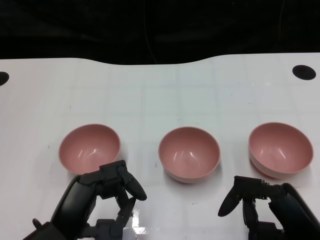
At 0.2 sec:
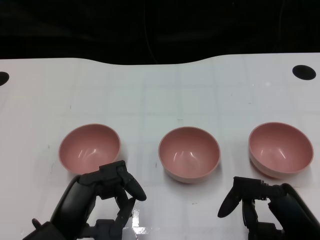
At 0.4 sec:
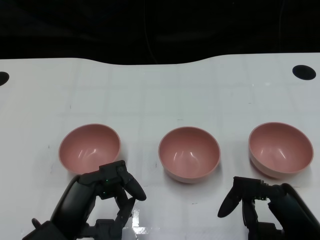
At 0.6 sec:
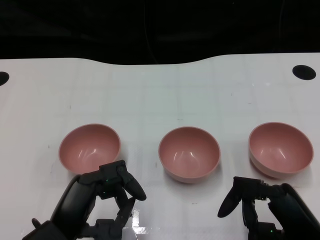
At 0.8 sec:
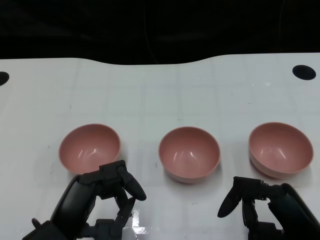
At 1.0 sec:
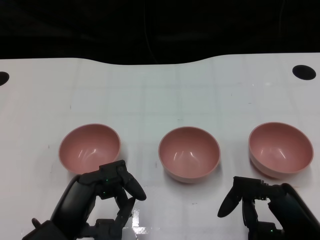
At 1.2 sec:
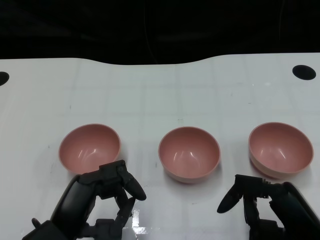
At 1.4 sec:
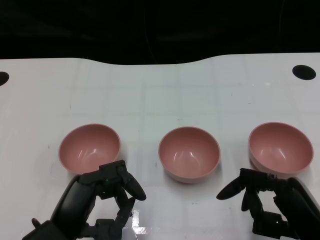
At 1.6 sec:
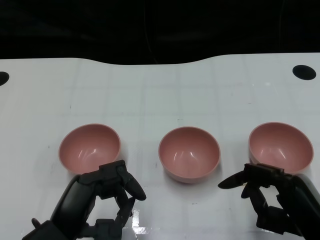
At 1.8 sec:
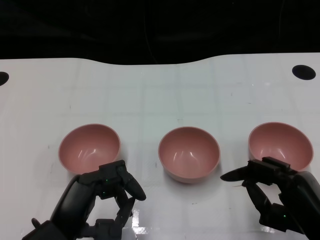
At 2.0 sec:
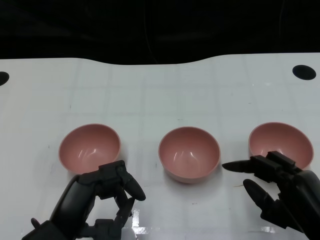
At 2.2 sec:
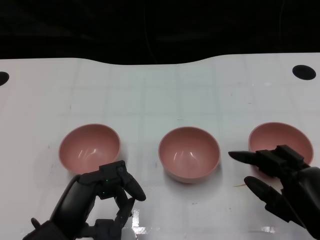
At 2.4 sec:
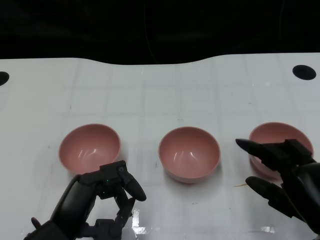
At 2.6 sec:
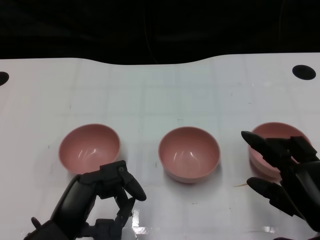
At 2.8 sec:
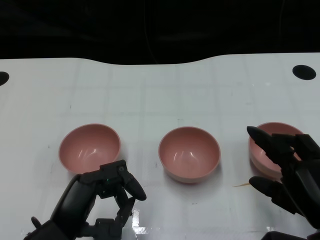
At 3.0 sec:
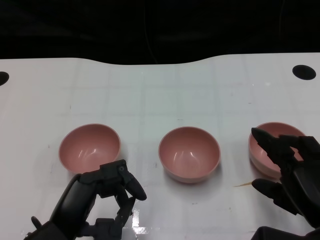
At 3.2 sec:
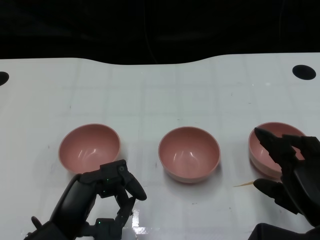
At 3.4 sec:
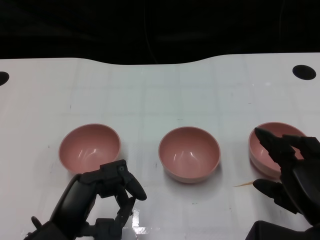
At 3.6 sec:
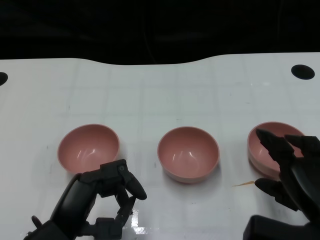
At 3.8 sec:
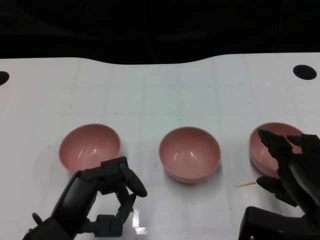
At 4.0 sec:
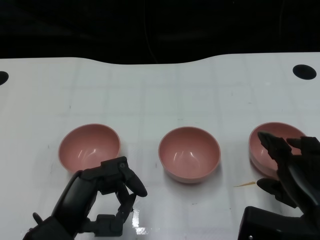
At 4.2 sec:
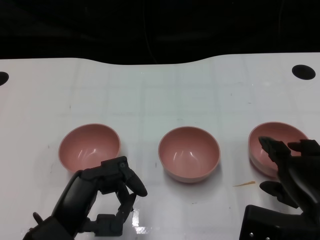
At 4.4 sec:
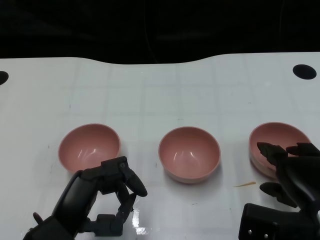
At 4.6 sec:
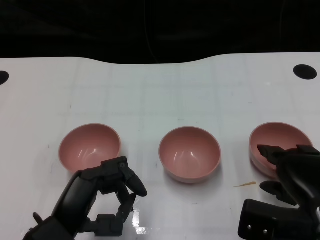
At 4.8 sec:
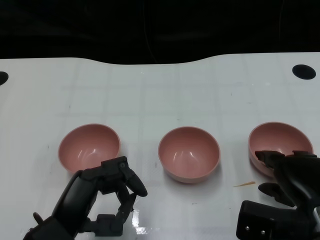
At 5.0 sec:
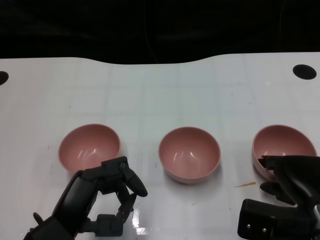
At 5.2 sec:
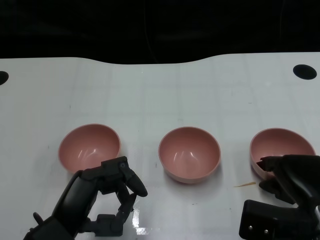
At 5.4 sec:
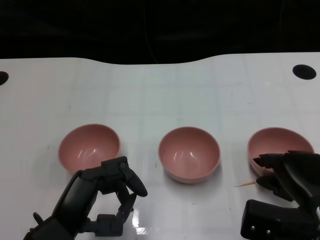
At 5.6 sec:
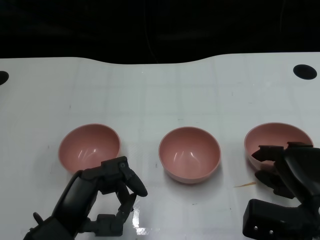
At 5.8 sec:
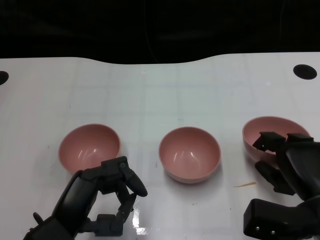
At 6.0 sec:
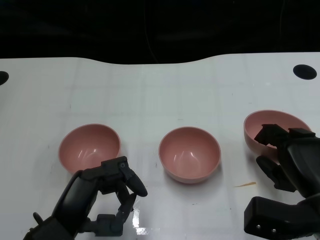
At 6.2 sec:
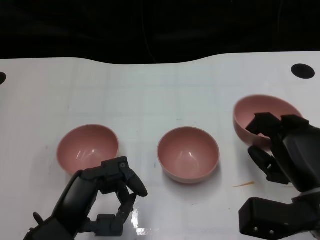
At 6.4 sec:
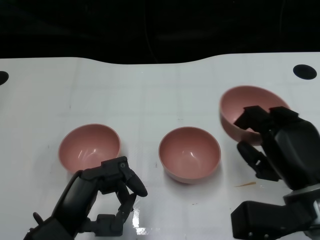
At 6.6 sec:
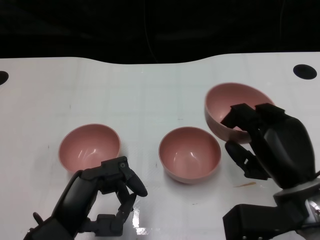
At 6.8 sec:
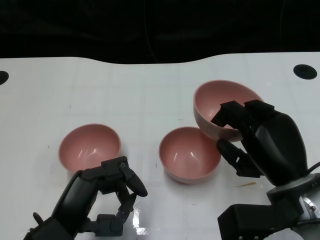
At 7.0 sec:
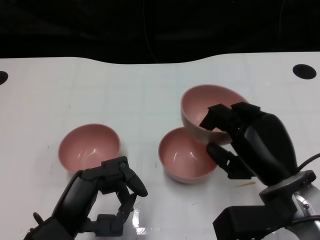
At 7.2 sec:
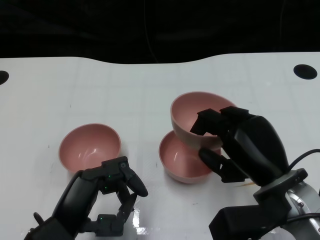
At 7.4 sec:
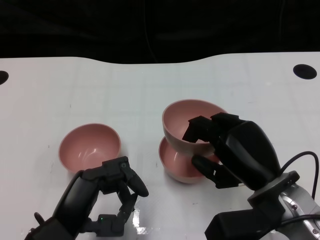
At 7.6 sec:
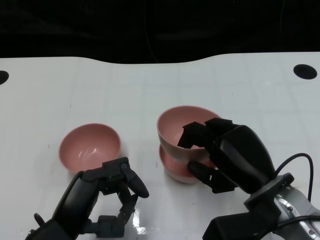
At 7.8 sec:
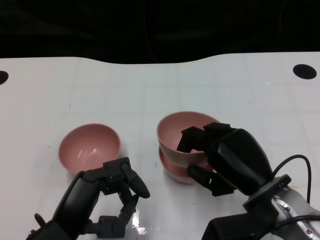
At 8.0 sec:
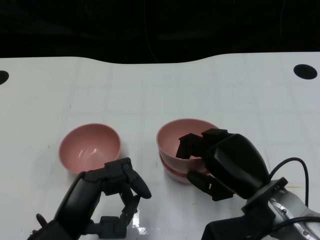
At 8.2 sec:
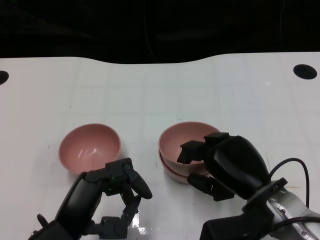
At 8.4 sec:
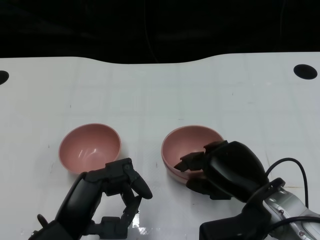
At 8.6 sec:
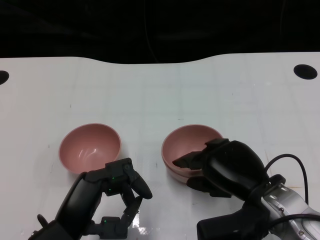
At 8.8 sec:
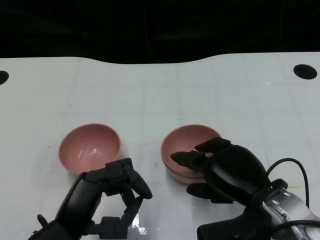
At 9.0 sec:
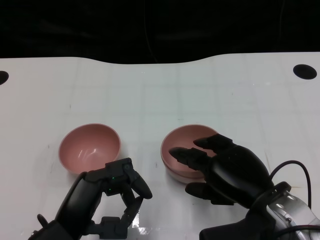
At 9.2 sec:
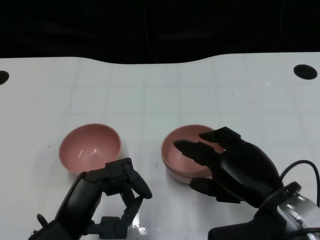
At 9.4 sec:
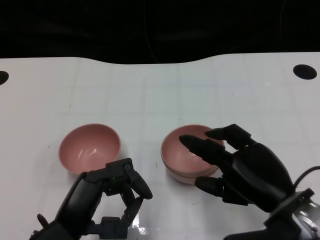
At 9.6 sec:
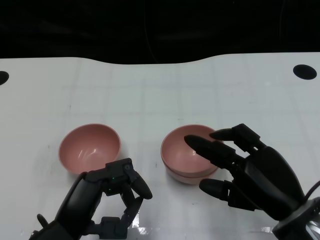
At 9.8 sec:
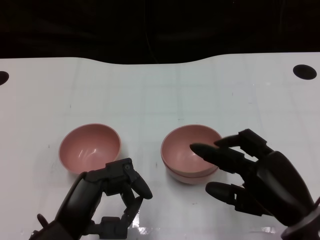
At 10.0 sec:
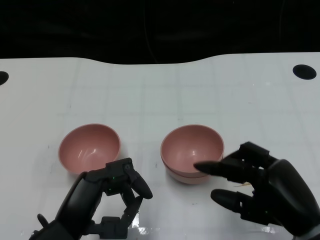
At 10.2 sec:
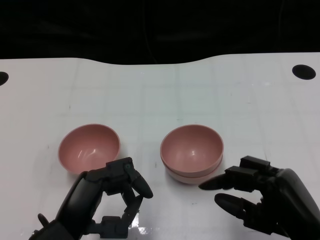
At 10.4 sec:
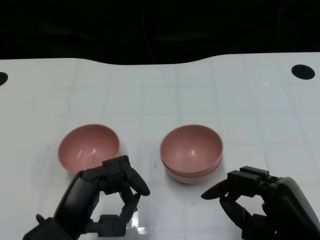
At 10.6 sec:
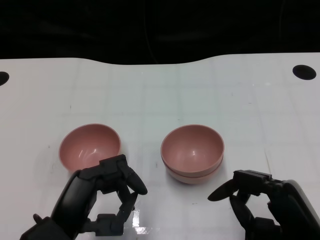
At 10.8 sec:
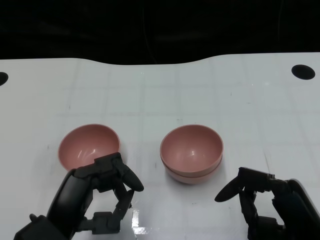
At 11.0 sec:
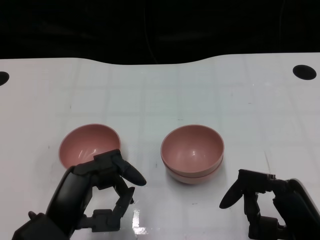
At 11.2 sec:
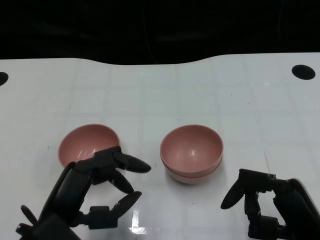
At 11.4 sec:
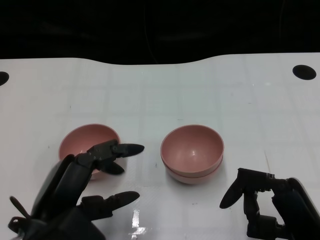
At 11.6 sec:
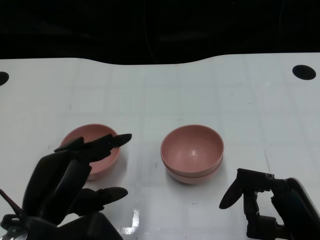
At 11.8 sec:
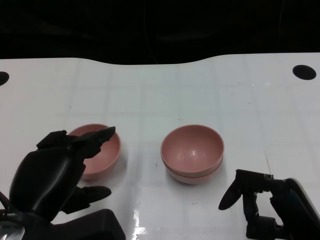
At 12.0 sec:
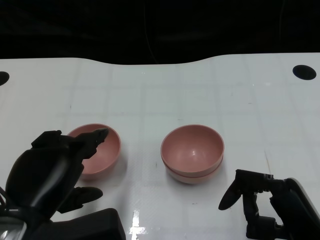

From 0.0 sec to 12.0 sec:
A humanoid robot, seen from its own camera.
Task of the whole recording: Pick up the bowl on one side of the table and place it on top of the middle bowl, then pick up the bowl on the other side of the table and place it on top of the middle bowls.
Step, from 1.2 sec to 5.6 sec: Grasp the bowl on the right with the right gripper.
Step, from 5.8 sec to 9.4 sec: Place the bowl on the right onto the bowl in the middle with right gripper.
From 6.0 sec to 7.6 sec: The right hand moves to the left, approximately 5 cm.
From 9.0 sec to 10.4 sec: The right hand goes roughly 5 cm backward.
From 10.4 sec to 12.0 sec: The left hand moves upward, roughly 5 cm.

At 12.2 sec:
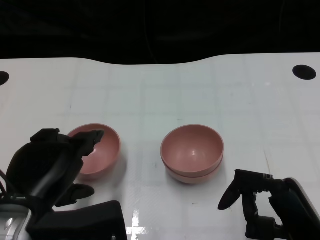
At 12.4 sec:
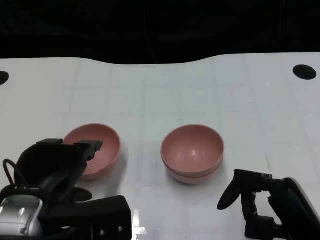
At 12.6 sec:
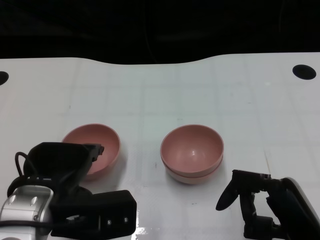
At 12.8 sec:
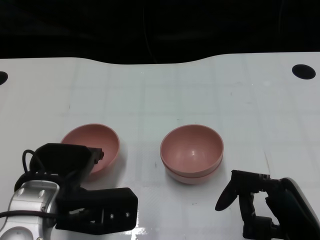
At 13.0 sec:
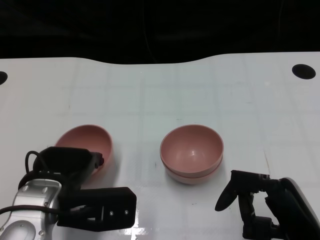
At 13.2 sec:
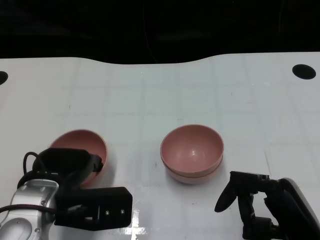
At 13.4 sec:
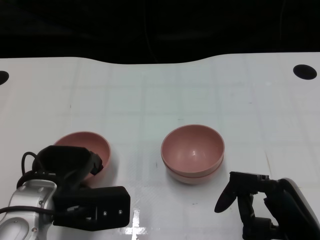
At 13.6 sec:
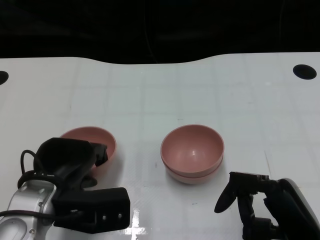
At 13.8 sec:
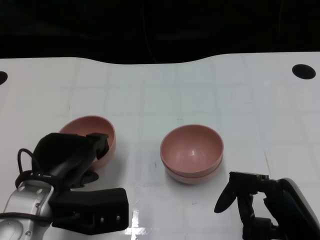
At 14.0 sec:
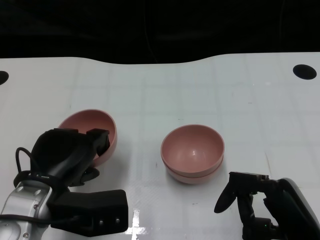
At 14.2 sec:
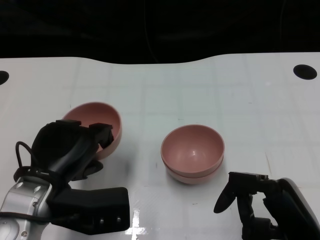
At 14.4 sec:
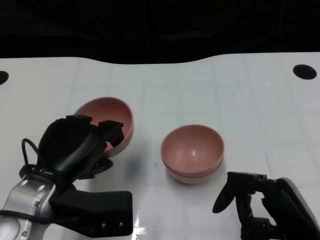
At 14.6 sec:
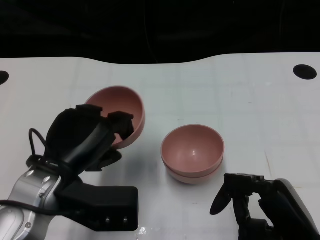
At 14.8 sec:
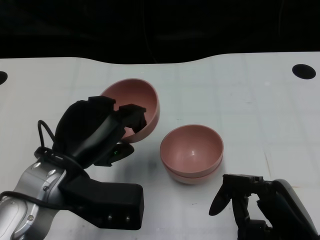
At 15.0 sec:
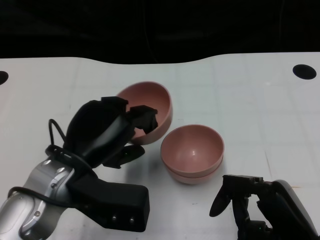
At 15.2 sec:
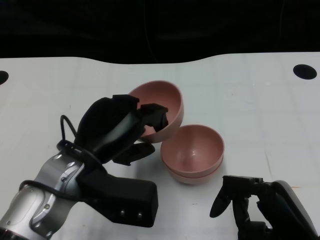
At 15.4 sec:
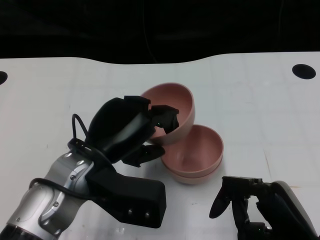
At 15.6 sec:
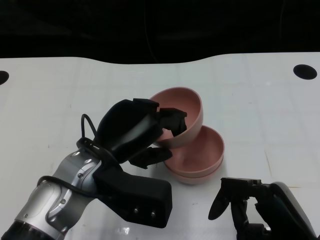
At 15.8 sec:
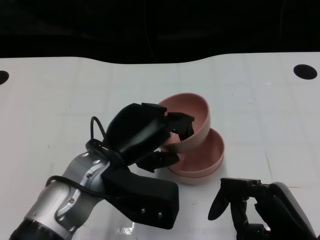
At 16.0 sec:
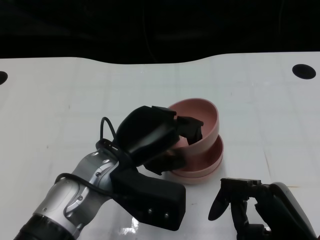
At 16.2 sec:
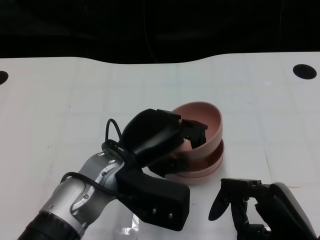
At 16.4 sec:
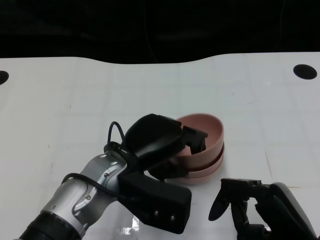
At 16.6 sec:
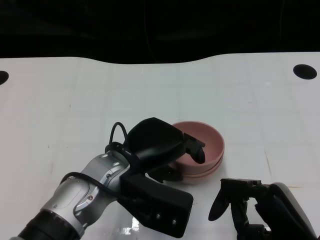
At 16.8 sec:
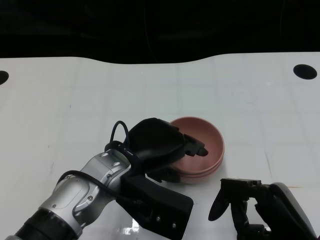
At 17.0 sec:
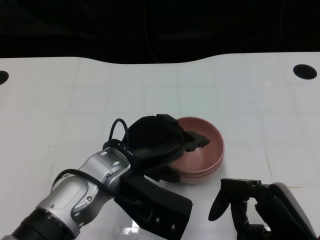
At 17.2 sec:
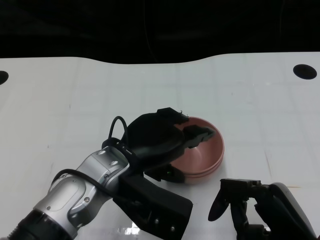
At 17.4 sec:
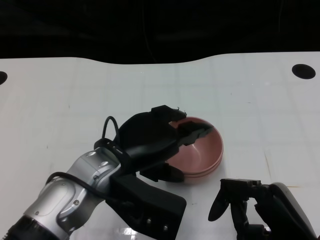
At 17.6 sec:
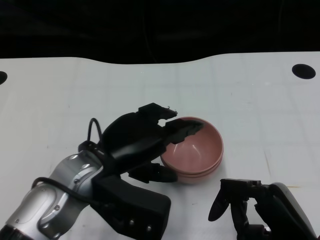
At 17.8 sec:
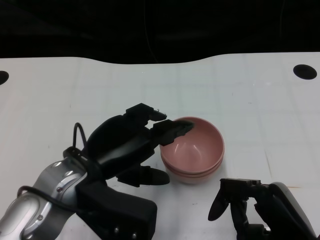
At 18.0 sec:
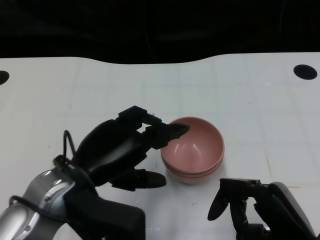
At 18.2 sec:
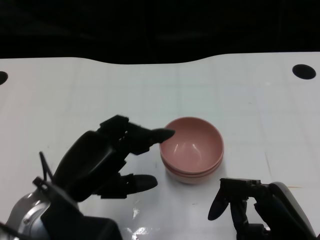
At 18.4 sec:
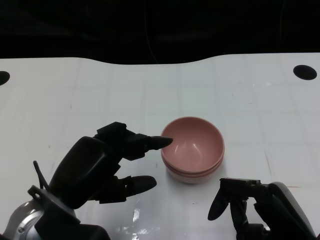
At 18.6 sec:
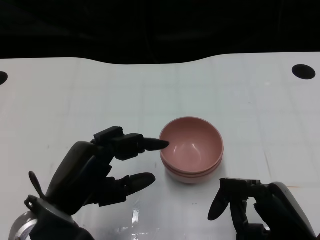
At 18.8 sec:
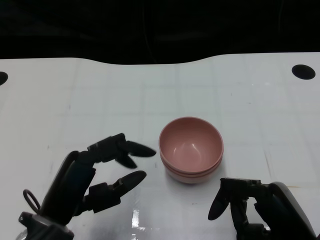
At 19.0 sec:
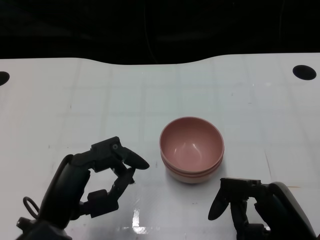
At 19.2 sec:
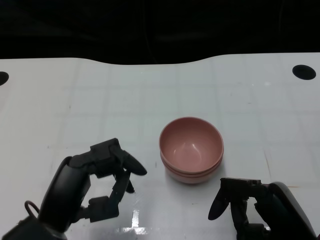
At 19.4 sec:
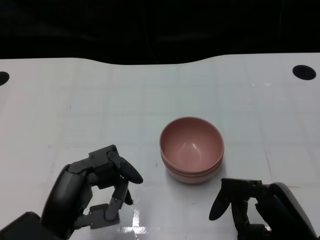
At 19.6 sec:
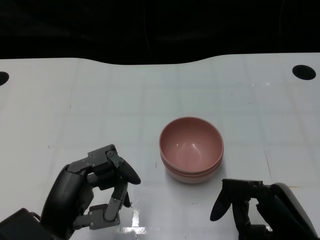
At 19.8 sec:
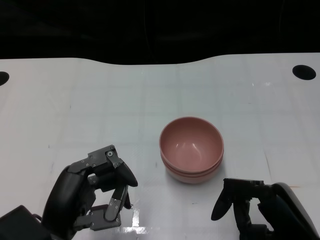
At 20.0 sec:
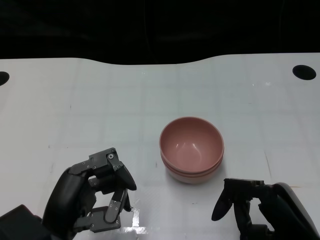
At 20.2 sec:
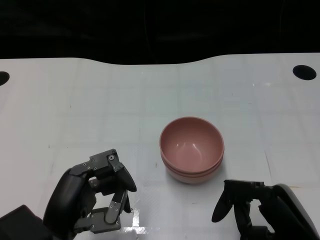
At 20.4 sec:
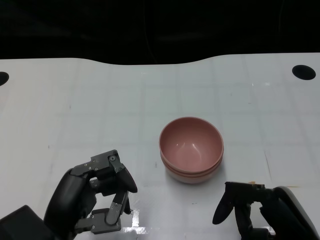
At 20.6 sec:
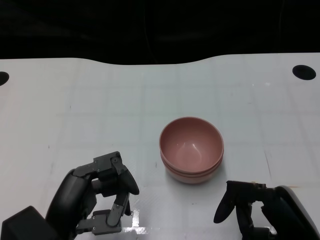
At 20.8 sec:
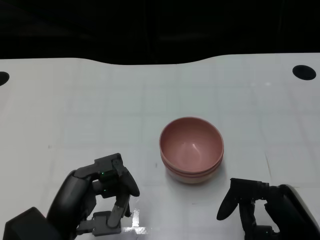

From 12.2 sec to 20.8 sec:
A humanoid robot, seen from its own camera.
Task of the whole recording: Pick up the bowl on one side of the table and place it on top of the middle bowl, then pick up the bowl on the other side of the table and place it on top of the middle bowls.
Step, from 13.8 sec to 18.0 sec: Place the bowl on the left onto the bowl in the middle with left gripper.
From 12.2 sec to 13.6 sec: The left hand heads forward and downward, covering roughly 10 cm.
From 13.6 sec to 15.0 sec: The left hand shifts by about 5 cm.
From 15.0 sec to 16.6 sec: The left hand travels to the right by some 5 cm.
From 16.6 sec to 18.0 sec: The left hand heads to the left, covering approximately 5 cm.
From 18.0 sec to 19.4 sec: The left hand is displaced backward by about 5 cm.
From 19.4 sec to 20.8 sec: There are only small adjustments of the hands.
